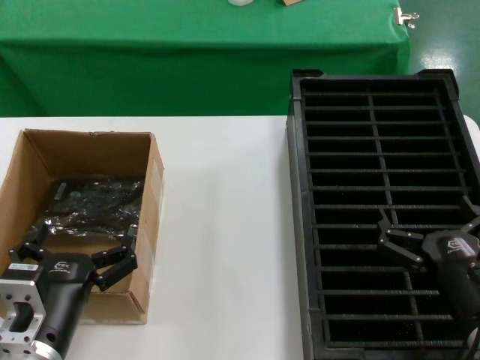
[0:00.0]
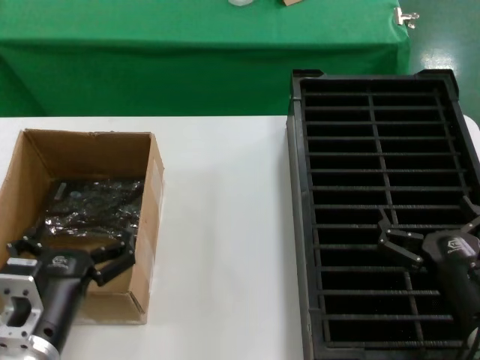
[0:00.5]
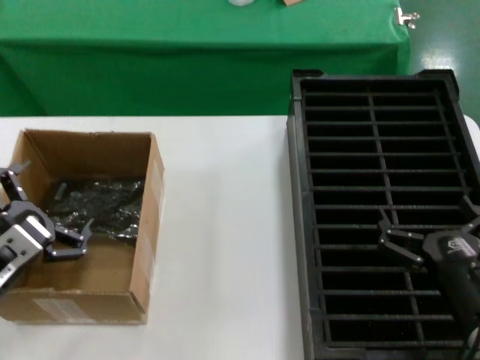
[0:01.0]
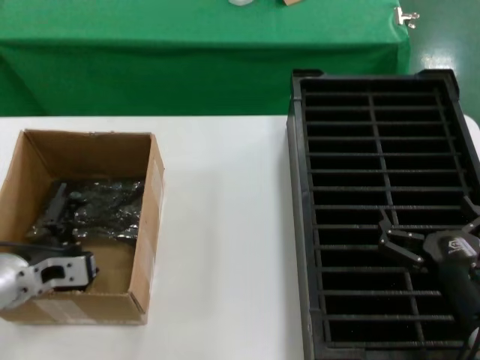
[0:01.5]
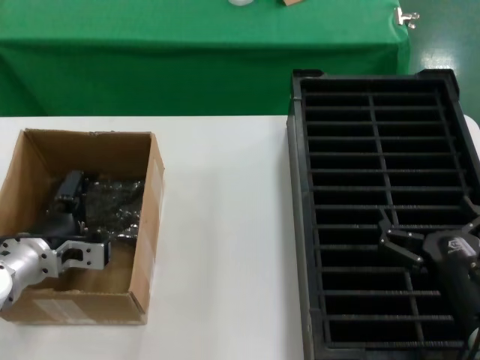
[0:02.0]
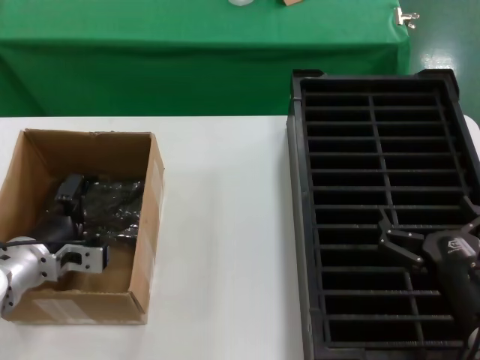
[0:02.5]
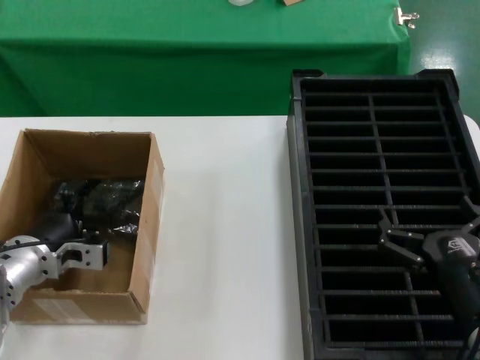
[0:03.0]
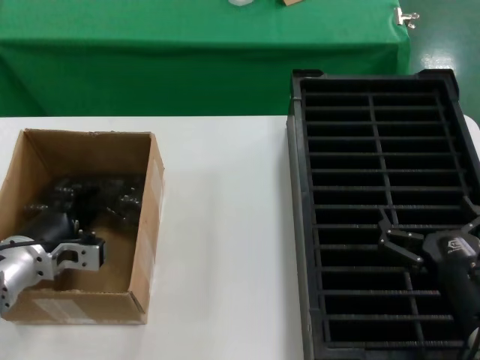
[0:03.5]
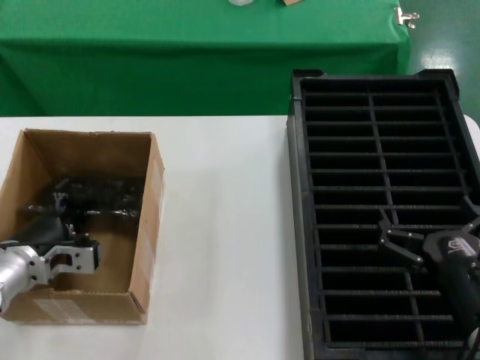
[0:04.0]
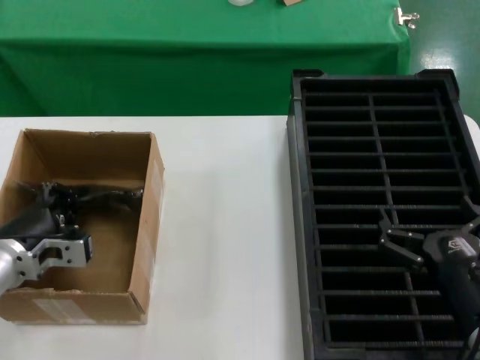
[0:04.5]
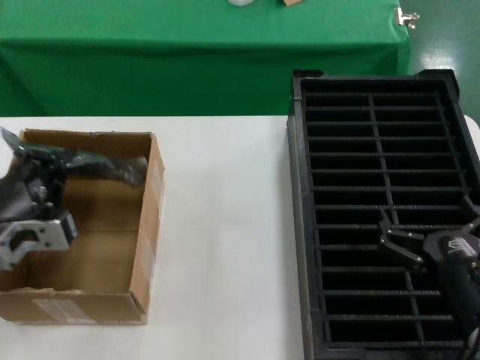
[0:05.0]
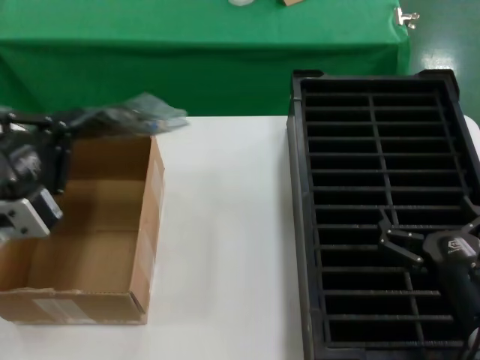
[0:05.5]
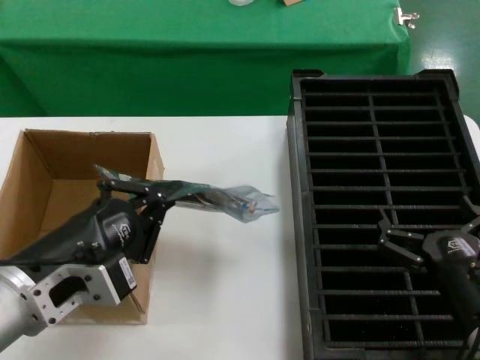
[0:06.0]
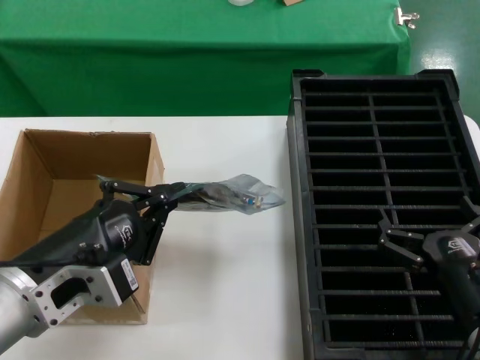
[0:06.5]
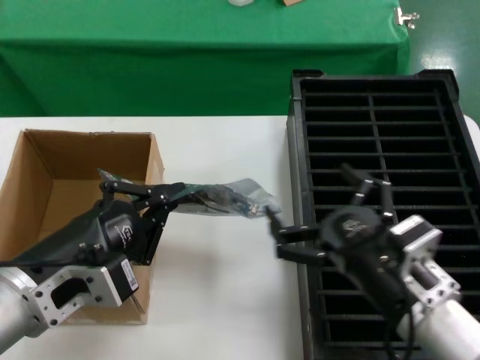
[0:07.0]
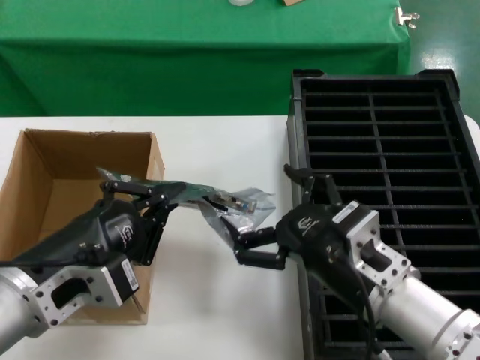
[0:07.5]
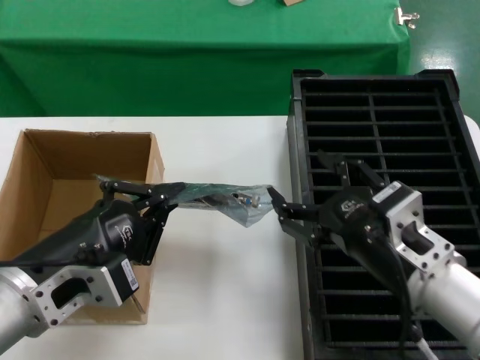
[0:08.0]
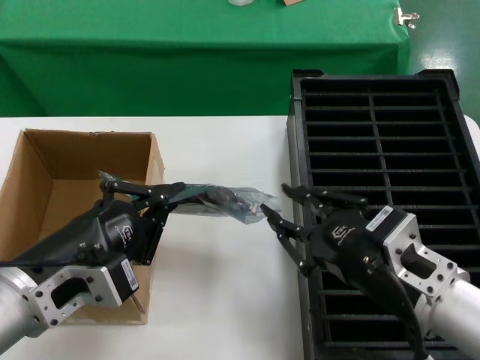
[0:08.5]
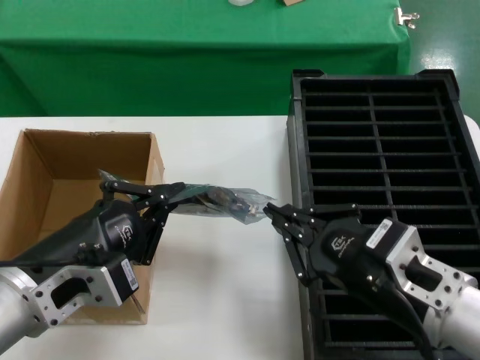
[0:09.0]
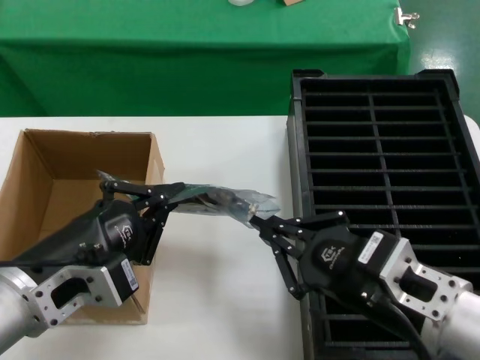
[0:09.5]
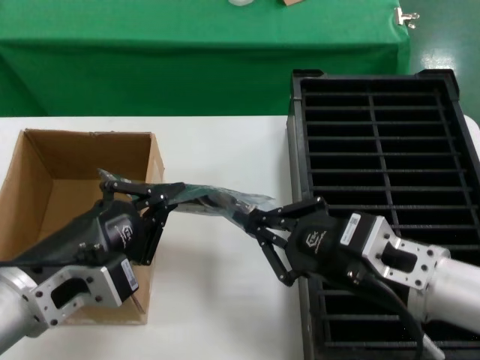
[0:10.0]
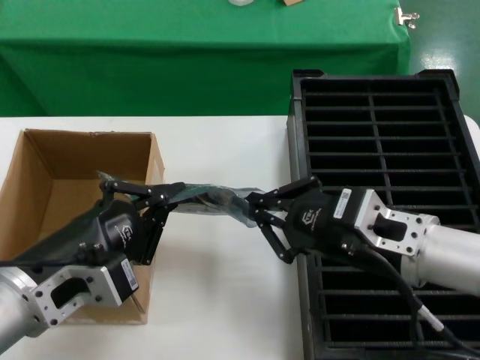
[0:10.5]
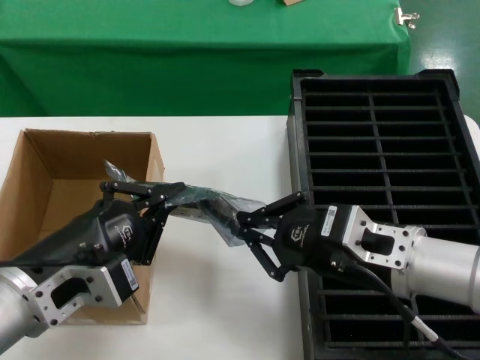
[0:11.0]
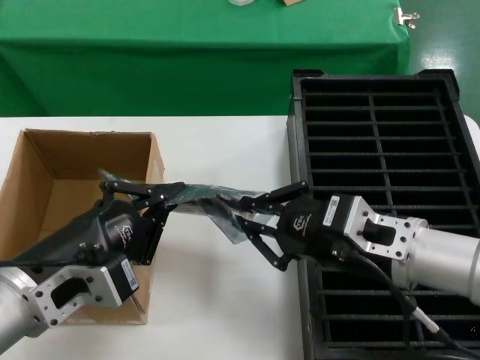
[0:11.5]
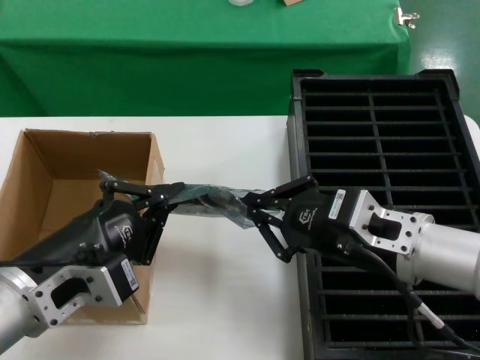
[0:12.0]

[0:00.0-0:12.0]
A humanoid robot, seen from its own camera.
Task of the whole recording: take out graphics card from box remove packaging put into black container.
Step, 0:00.0 to 0:03.5: Grasp the bag.
Step, 0:04.0 to 0:06.0: Lift the bag.
0:00.0 to 0:02.0: The left hand heads forward and to the left, covering roughly 20 cm.
0:02.0 to 0:04.0: The hands stay close to where they were, moving slightly.
0:04.0 to 0:06.0: The left hand is displaced backward, upward and to the right by approximately 20 cm.
0:06.0 to 0:08.0: The right hand is displaced upward and to the left by approximately 10 cm.
0:10.0 to 0:12.0: There are only small adjustments of the hands.

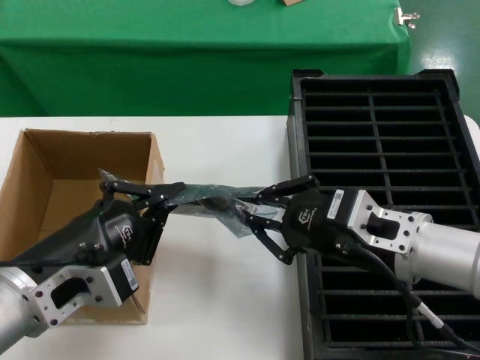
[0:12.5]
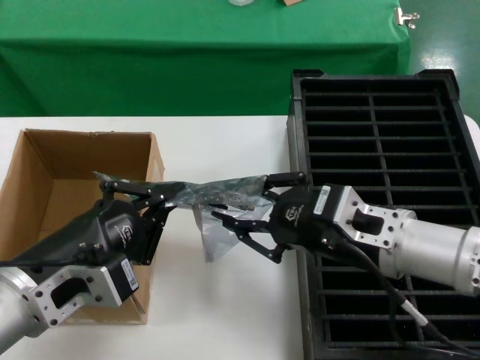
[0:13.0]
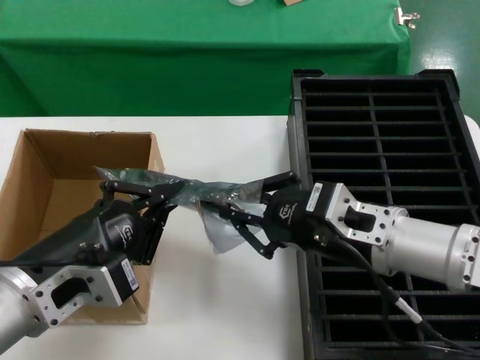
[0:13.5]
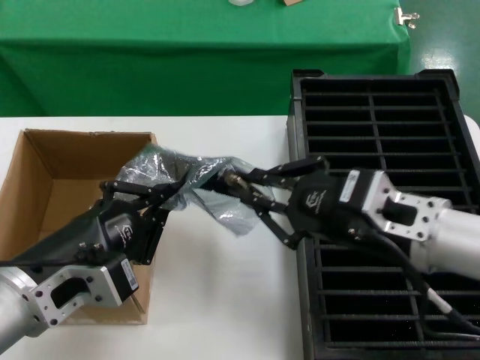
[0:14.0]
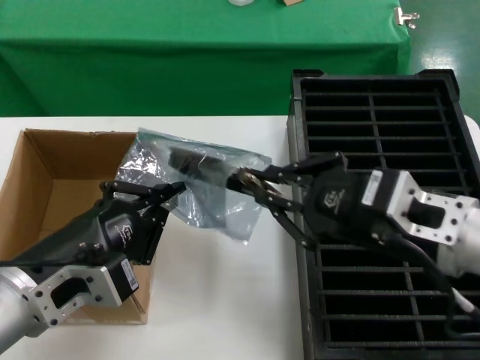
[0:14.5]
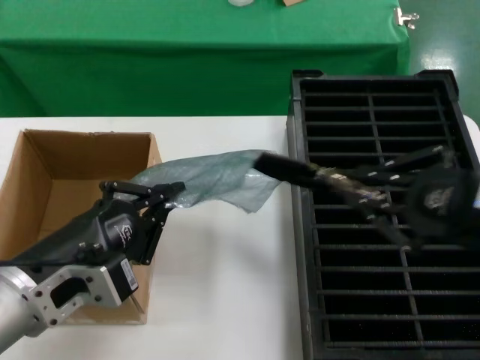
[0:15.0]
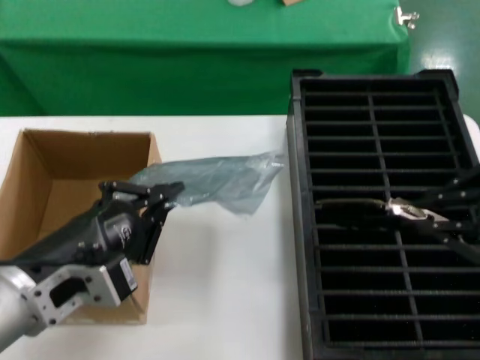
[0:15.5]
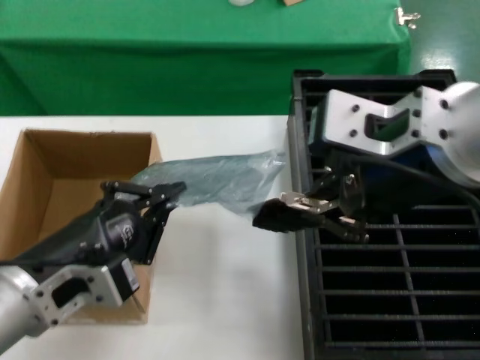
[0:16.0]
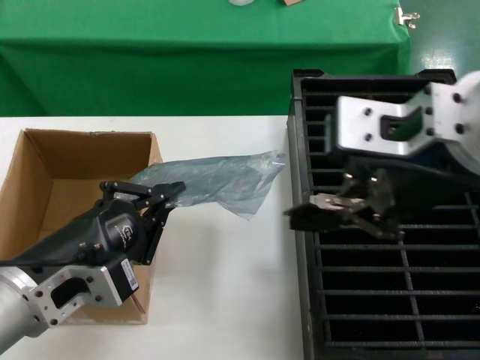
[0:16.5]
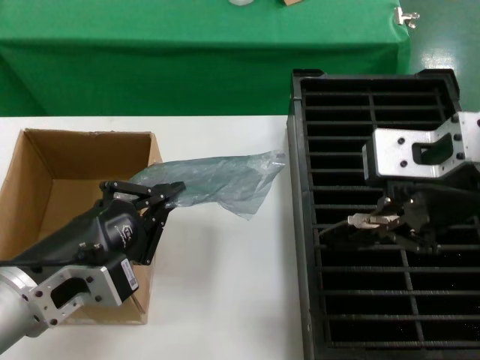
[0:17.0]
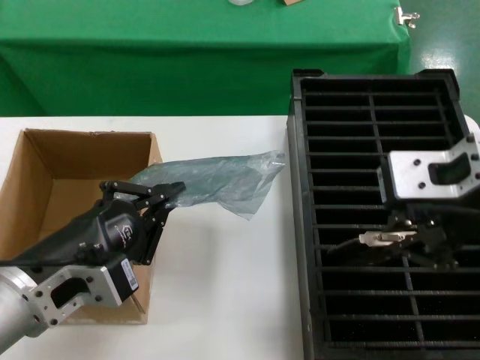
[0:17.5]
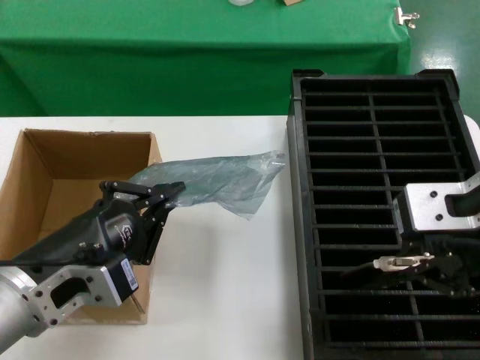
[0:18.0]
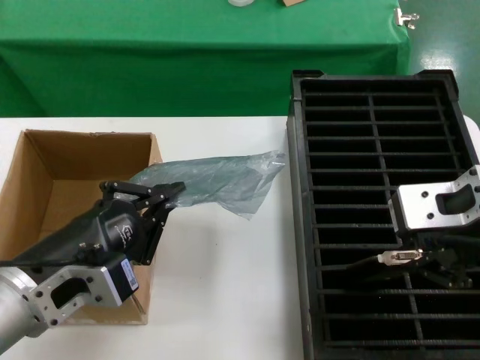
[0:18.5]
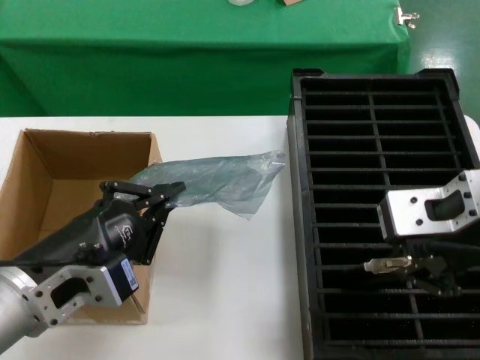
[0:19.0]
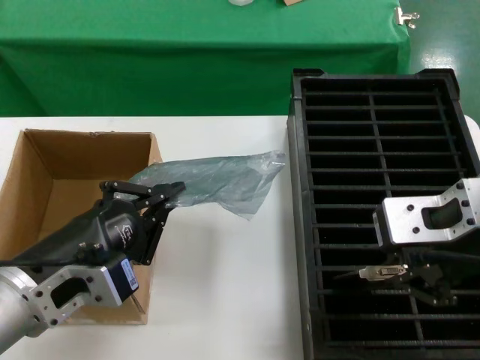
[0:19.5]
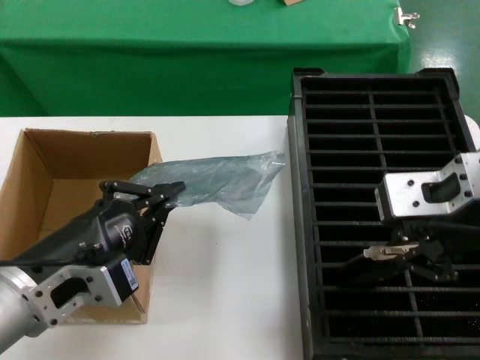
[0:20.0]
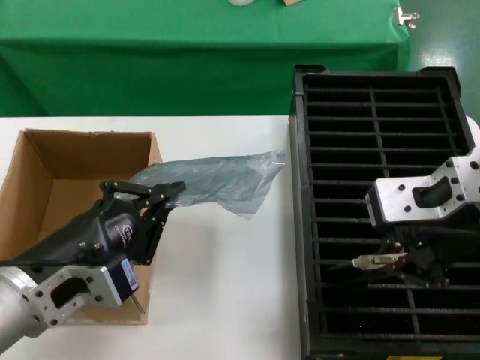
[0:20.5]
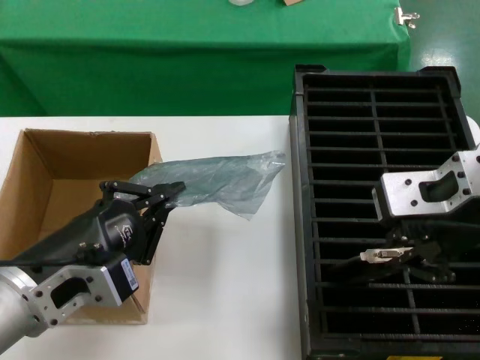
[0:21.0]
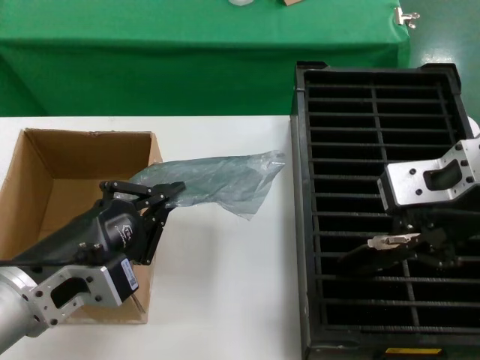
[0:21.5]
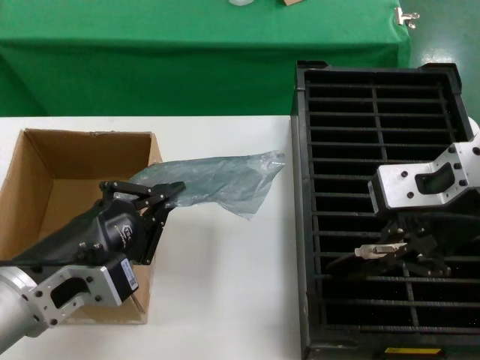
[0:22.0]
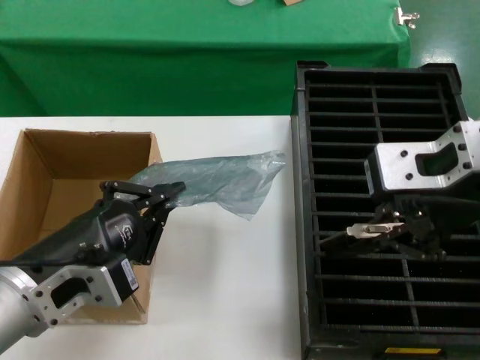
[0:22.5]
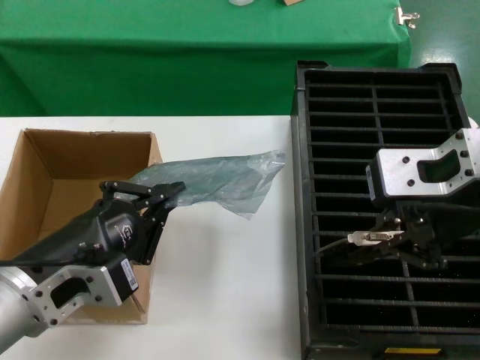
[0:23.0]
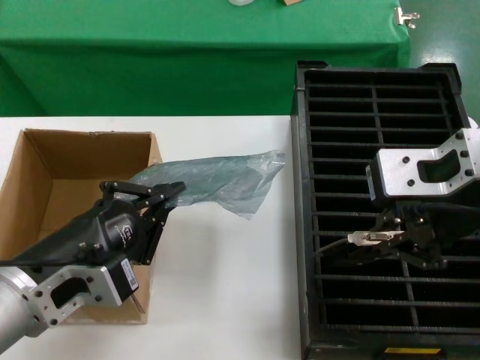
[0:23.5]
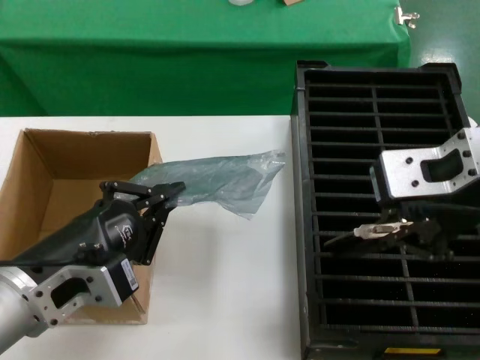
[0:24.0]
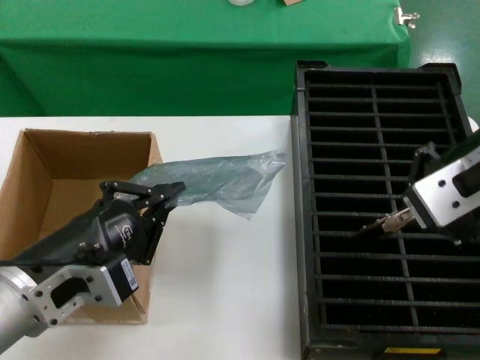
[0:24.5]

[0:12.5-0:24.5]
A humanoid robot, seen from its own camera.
Task of the whole recording: take out graphics card from box remove packaging put into black container.
Step, 0:12.5 to 0:15.0: Take out the hard disk of the bag.
0:12.5 to 0:14.5: The right hand moves about 5 cm.
0:14.5 to 0:16.5: The right hand travels upward and to the left by some 20 cm.
0:16.5 to 0:18.5: The right hand moves downward and to the right, some 10 cm.
0:18.5 to 0:22.5: There are only small adjustments of the hands.

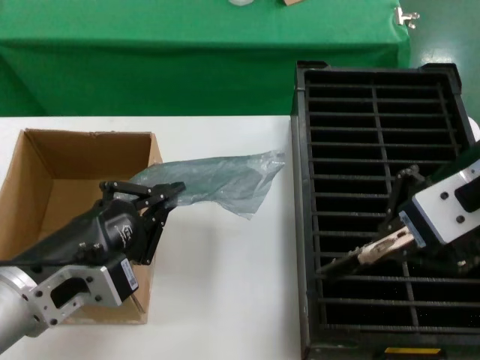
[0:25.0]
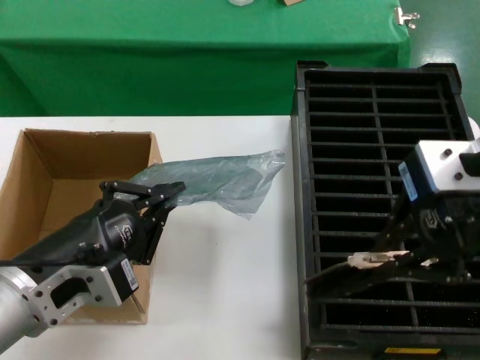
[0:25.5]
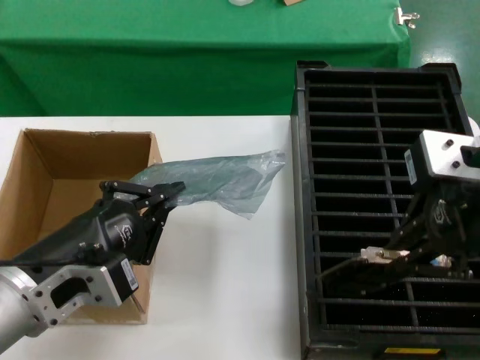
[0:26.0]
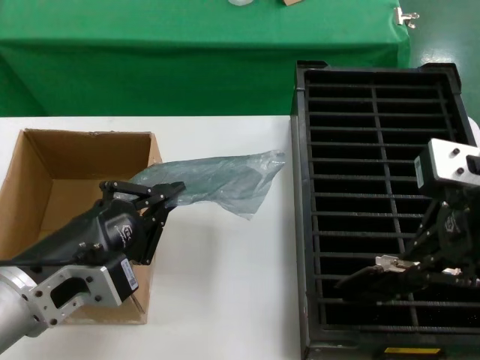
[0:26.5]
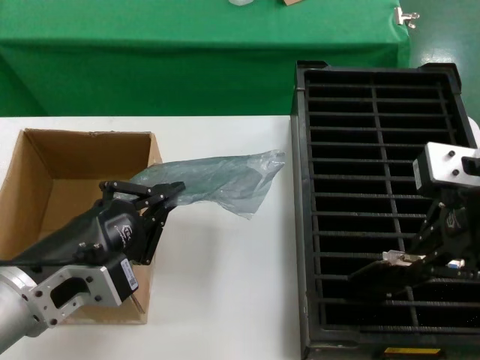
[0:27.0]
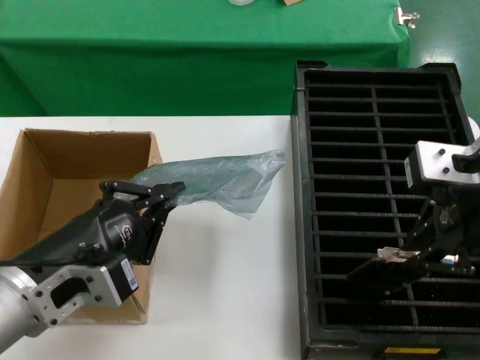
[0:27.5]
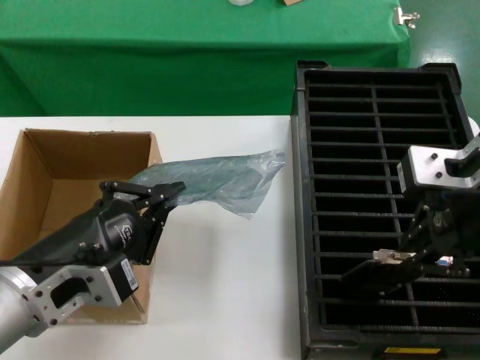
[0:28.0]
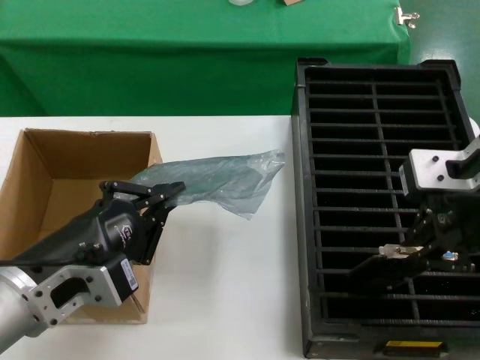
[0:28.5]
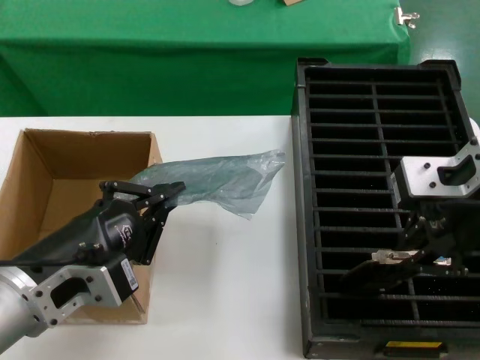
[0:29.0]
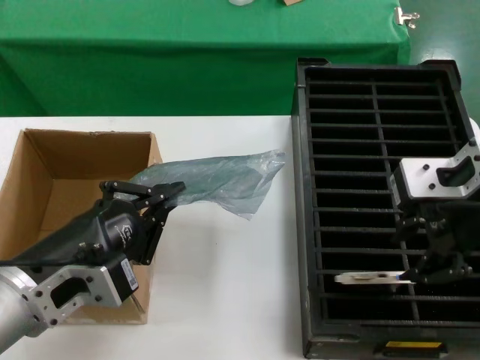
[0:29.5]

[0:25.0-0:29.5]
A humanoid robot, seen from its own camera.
Task of the whole recording: take out graphics card from box remove packaging put into black container.
Step, 0:25.0 to 0:29.0: Place the hard disk in the hard disk enclosure.
0:25.0 to 0:27.0: The right hand shifts by about 5 cm.
0:27.0 to 0:29.5: The hands move only a little.
